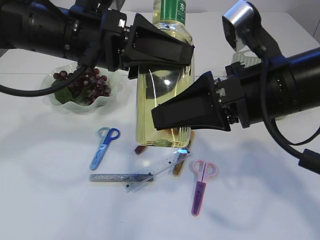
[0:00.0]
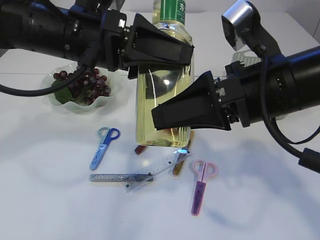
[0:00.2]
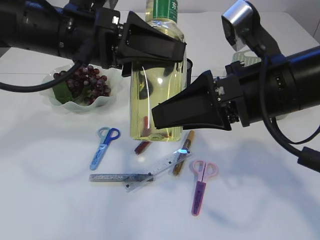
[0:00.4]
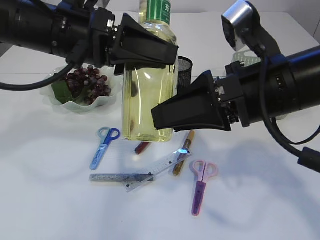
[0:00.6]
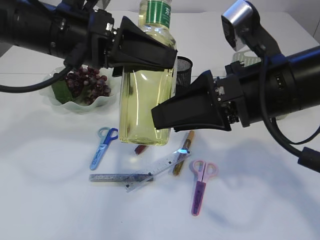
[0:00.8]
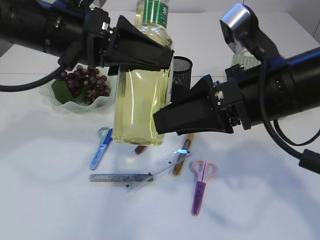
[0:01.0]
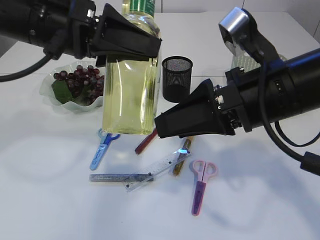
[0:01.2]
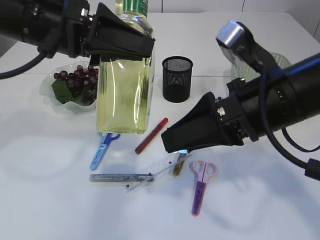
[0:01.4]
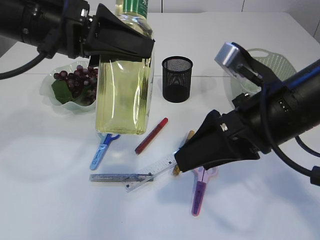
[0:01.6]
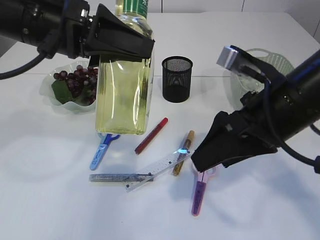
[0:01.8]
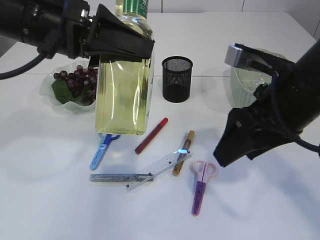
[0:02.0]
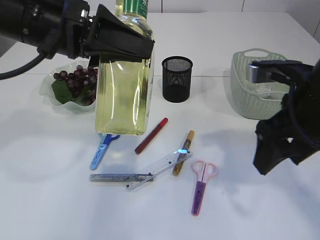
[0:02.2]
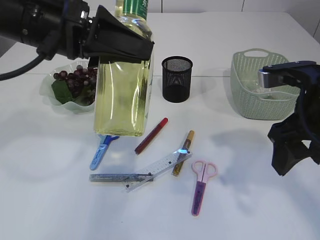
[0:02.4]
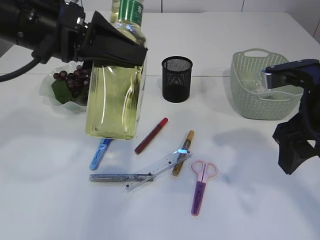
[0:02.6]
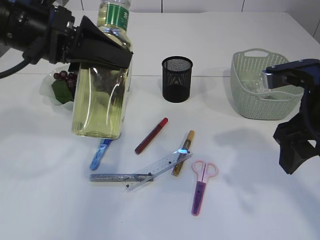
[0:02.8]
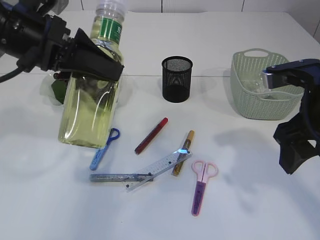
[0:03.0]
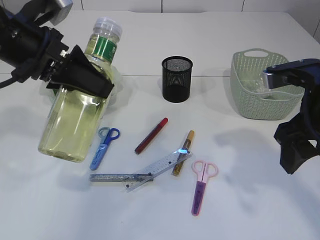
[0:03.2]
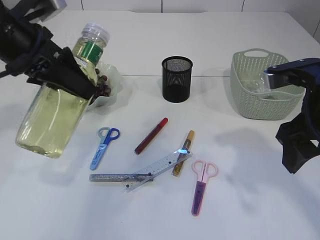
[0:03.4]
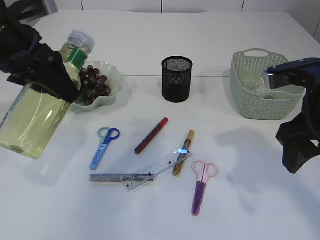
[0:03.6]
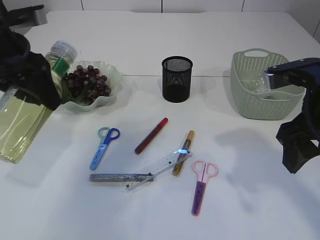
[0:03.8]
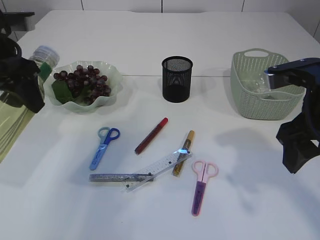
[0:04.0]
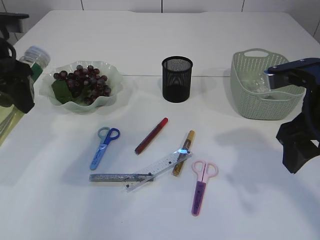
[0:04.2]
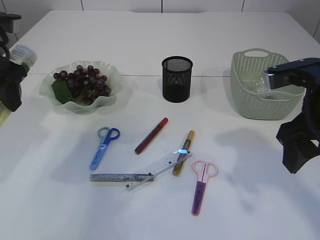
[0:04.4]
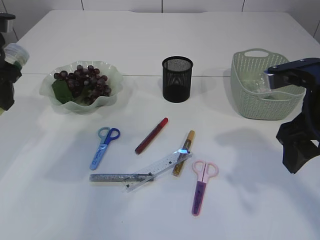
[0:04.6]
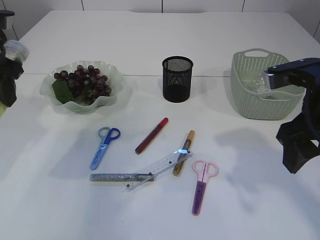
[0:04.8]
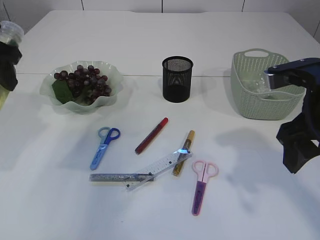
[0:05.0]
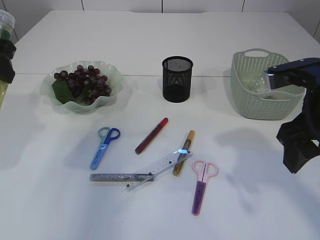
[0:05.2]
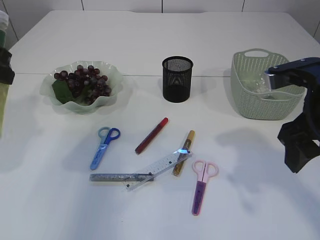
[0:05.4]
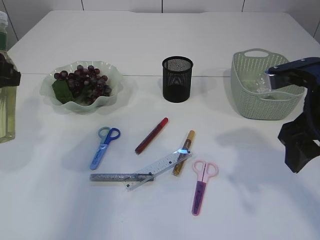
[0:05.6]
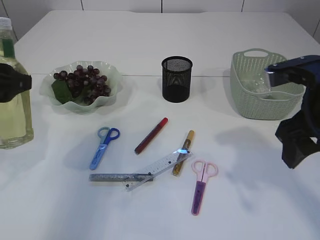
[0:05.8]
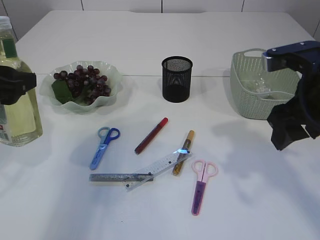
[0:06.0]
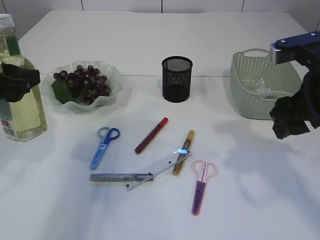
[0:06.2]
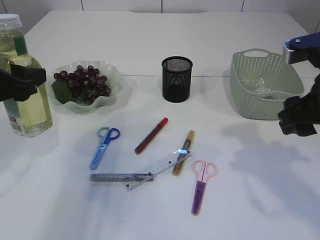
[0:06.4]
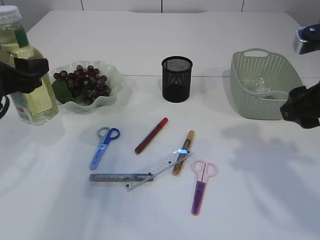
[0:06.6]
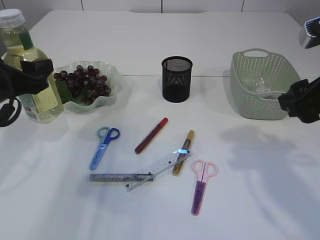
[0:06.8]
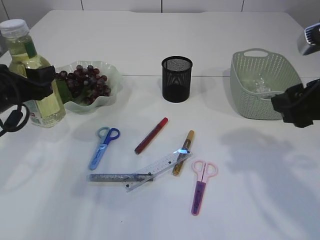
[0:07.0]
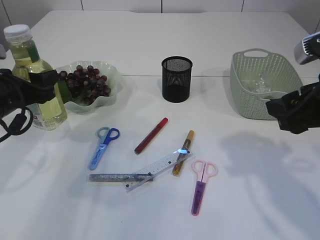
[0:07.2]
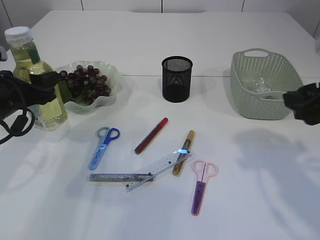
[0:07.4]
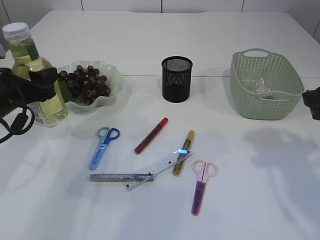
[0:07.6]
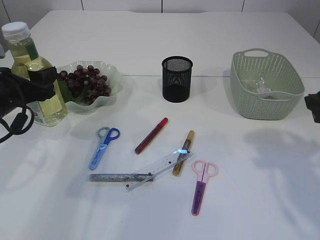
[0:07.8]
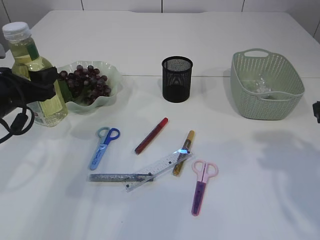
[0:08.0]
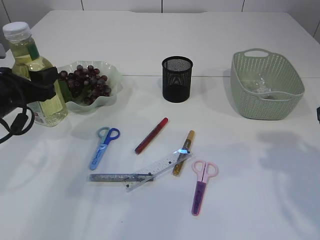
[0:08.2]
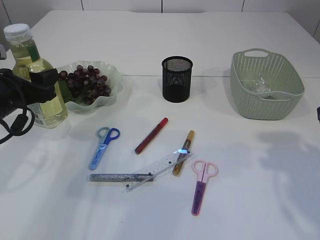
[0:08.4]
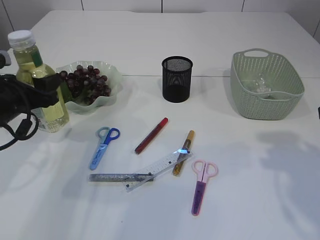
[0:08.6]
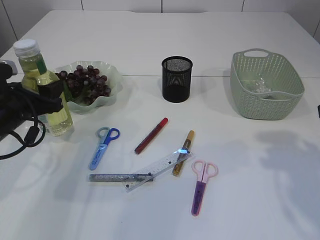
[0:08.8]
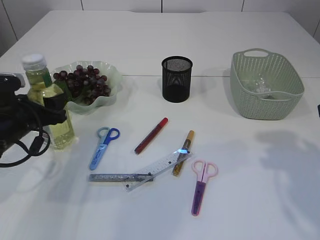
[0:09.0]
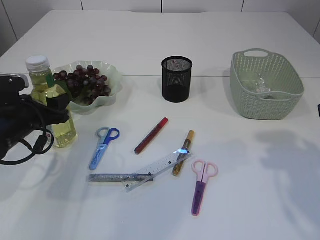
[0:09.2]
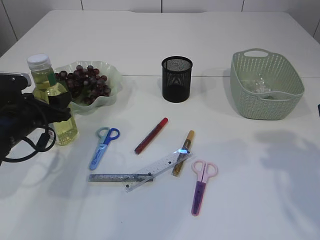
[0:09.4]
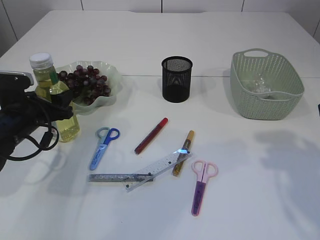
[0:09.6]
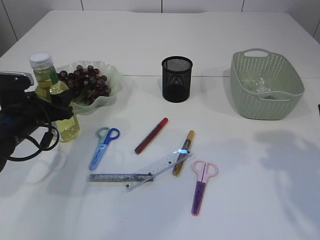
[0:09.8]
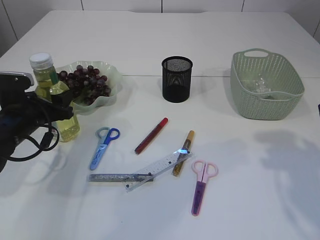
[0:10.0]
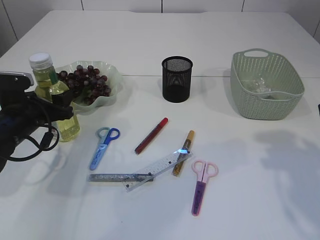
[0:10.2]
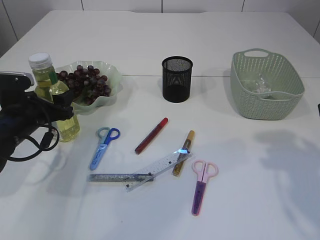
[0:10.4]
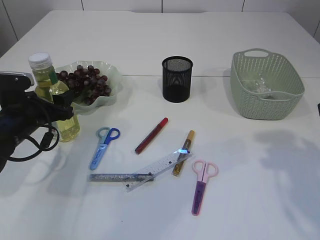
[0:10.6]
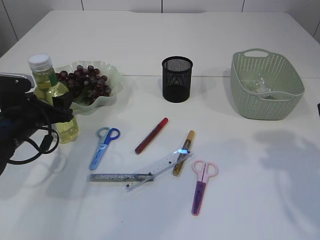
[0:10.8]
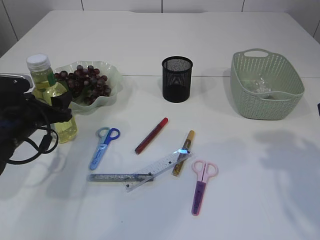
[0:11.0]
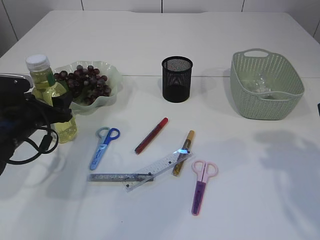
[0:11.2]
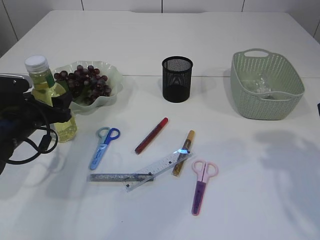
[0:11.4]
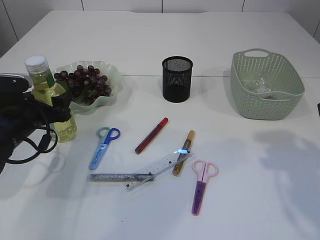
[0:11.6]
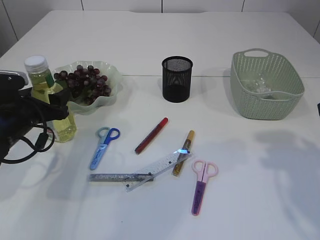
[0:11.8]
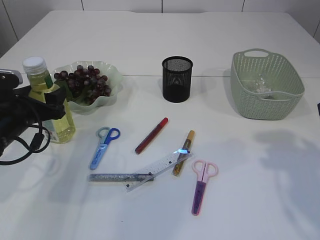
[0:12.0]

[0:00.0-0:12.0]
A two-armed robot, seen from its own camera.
0:01.6 to 0:03.0: The right gripper shifts approximately 5 cm to the right.
0:03.0 to 0:04.4: The left gripper shifts about 10 cm to the left.
0:04.4 to 0:06.0: The left gripper is displaced backward by roughly 5 cm.
0:06.0 to 0:07.6: The left gripper goes roughly 10 cm downward and forward; the right gripper heads to the right, covering roughly 5 cm.
0:07.6 to 0:09.0: The left gripper shifts approximately 5 cm downward.
0:09.0 to 0:12.0: The grippers stay close to where they were, moving slightly.

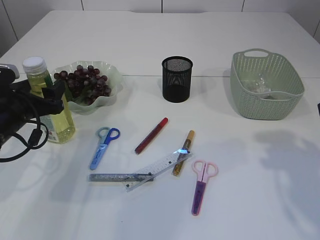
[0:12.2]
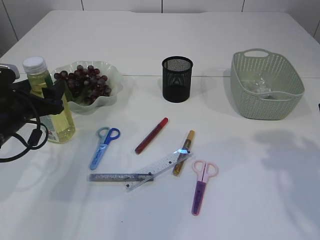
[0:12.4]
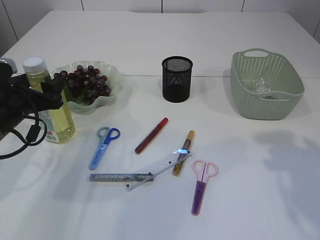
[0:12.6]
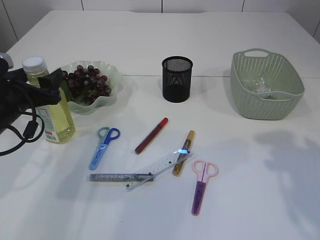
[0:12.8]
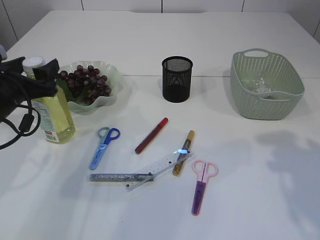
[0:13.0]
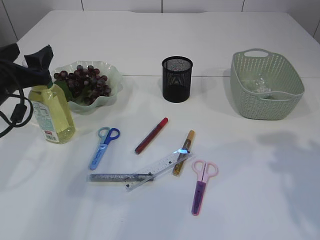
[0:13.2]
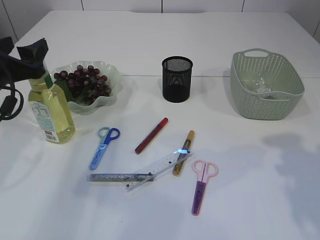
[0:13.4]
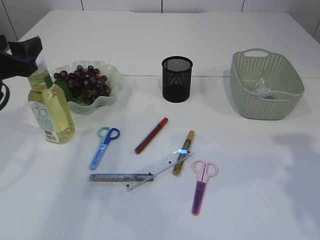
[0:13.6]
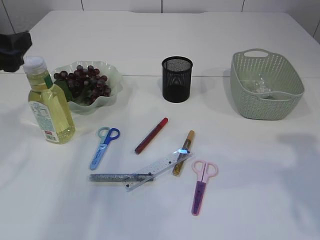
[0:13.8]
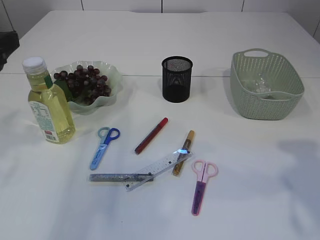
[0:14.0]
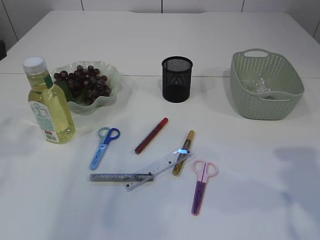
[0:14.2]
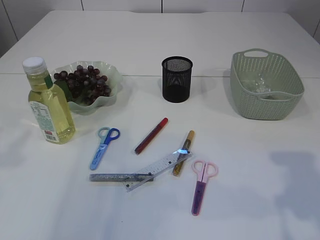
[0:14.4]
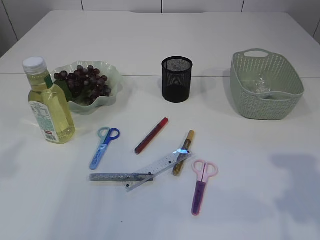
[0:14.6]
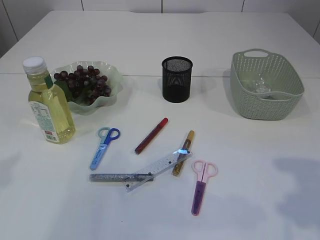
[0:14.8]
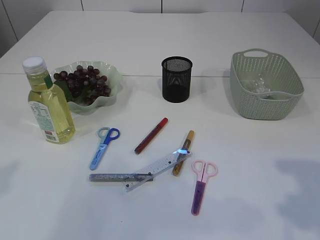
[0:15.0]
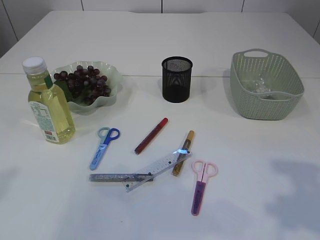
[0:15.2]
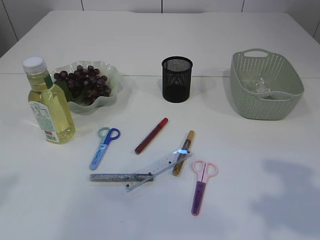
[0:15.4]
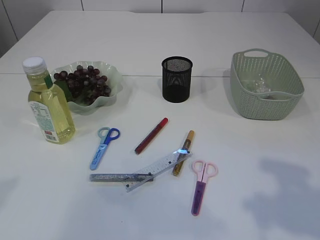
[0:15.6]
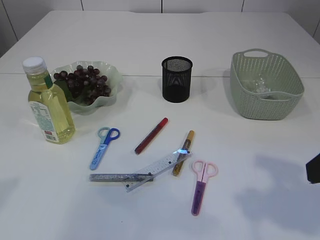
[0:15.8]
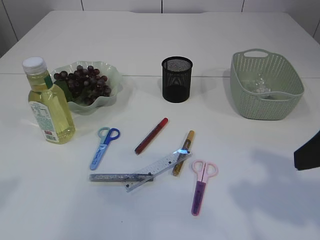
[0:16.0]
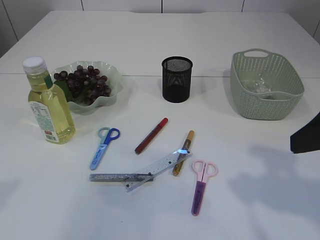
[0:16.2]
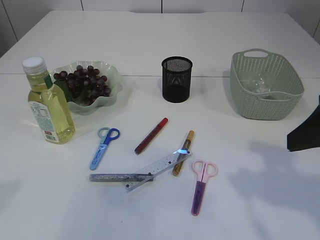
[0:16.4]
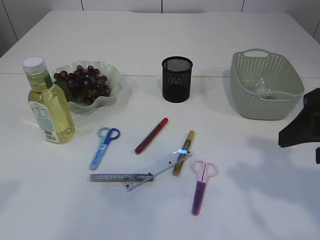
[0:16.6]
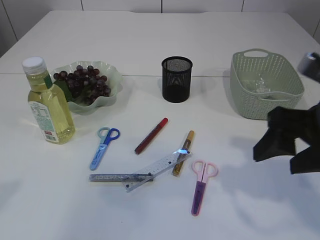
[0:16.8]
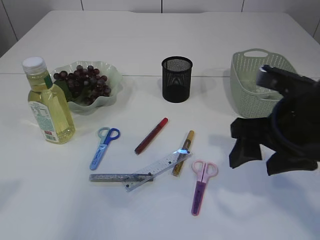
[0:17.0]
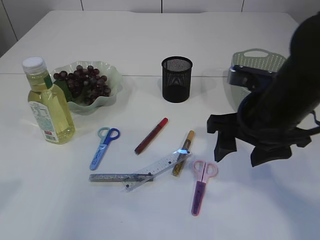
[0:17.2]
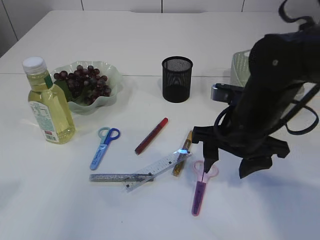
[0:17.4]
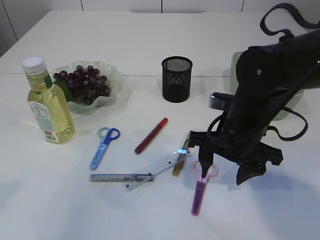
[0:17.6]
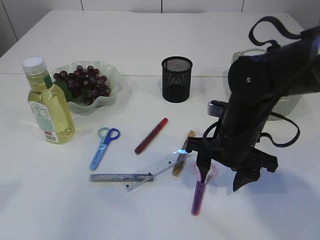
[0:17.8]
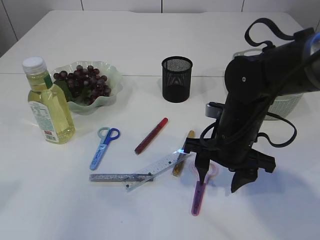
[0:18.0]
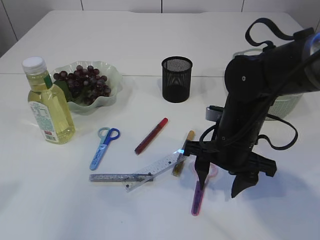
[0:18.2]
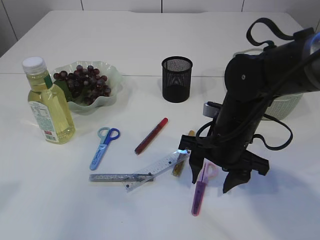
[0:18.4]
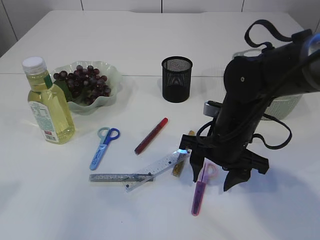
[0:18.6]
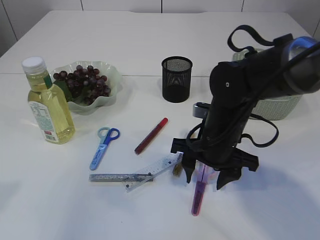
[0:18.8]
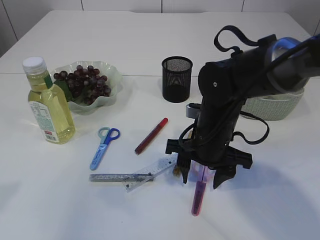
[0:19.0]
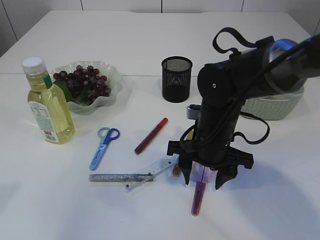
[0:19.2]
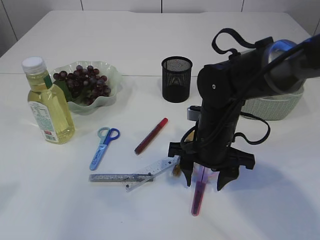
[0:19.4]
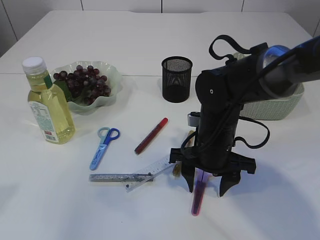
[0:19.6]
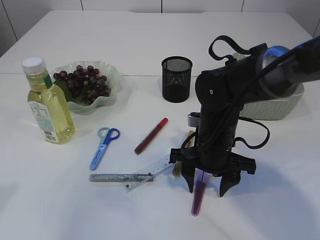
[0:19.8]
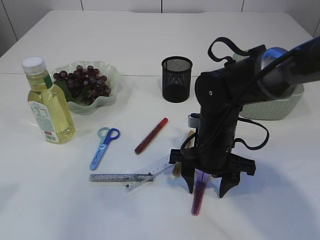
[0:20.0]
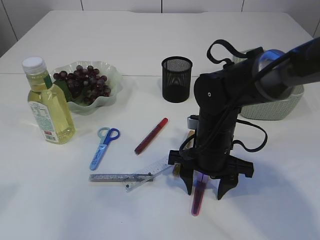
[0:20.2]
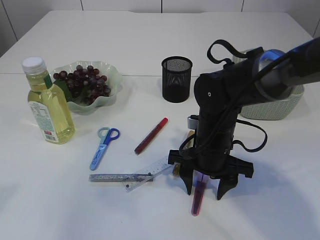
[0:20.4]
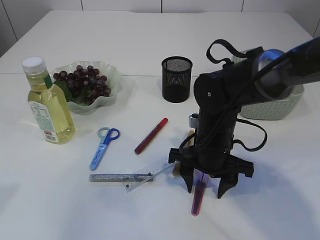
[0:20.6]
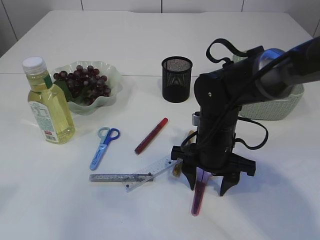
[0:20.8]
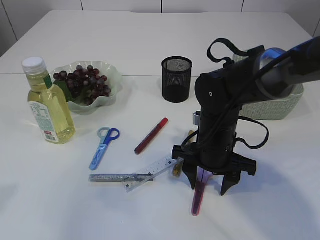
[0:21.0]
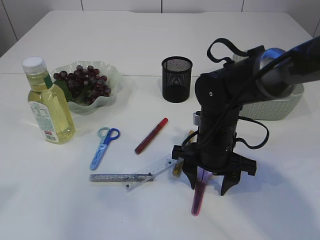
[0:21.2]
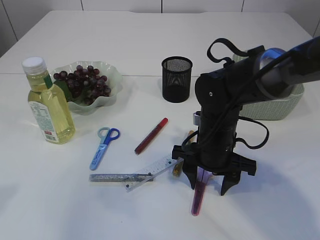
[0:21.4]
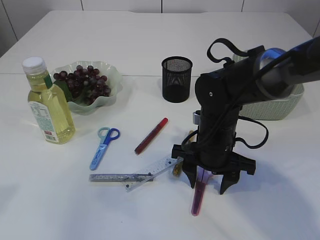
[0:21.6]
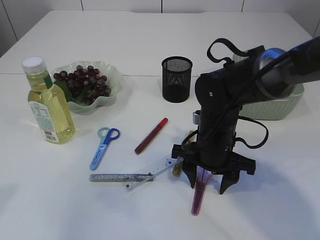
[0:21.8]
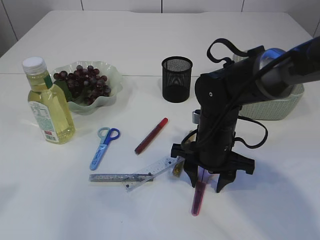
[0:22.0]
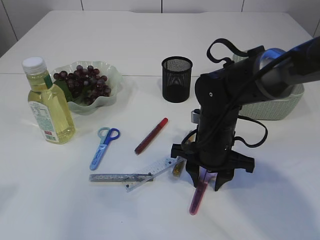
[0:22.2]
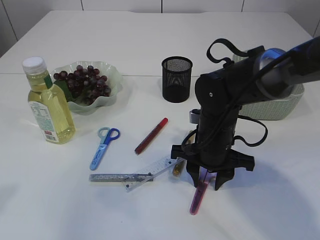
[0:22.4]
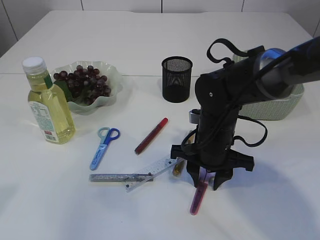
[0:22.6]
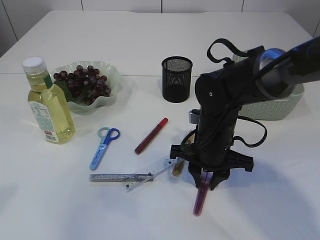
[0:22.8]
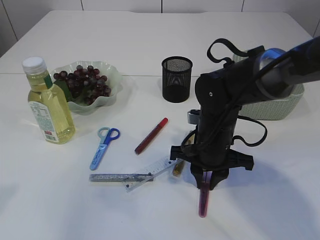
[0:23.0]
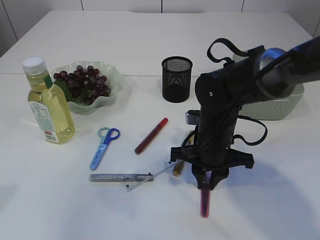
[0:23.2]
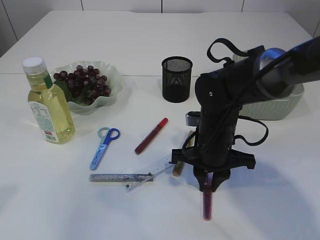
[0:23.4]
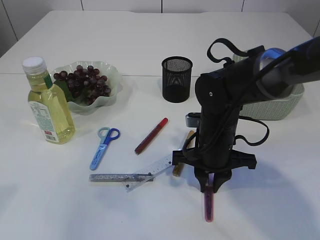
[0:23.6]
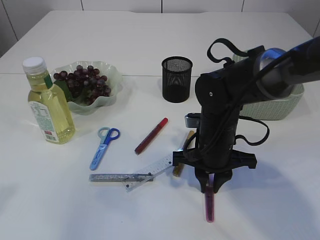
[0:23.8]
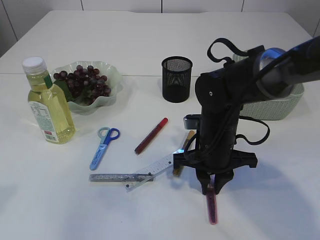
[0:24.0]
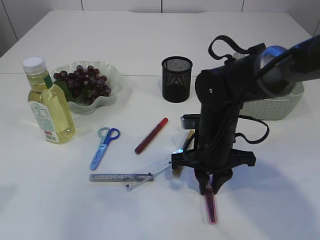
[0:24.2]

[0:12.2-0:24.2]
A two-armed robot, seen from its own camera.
0:12.2 to 0:13.8: The left gripper moves upward, roughly 15 cm.
0:13.8 to 0:15.2: The right gripper moves backward, roughly 5 cm, while the left gripper travels backward and upward by about 15 cm.
0:15.2 to 0:16.6: The right gripper moves forward, roughly 5 cm.
0:16.6 to 0:18.2: The right gripper is displaced downward, to the left and forward by about 20 cm.
0:18.2 to 0:24.2: The grippers make only small movements.
